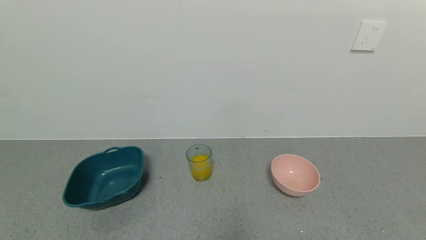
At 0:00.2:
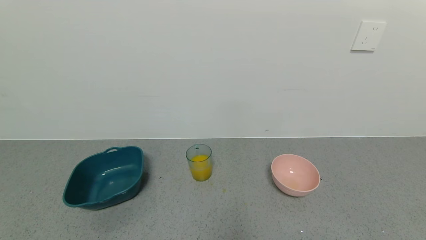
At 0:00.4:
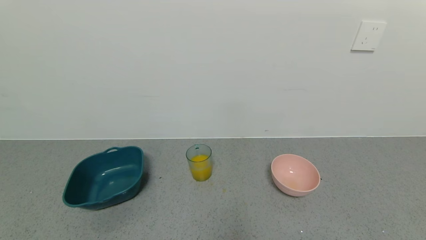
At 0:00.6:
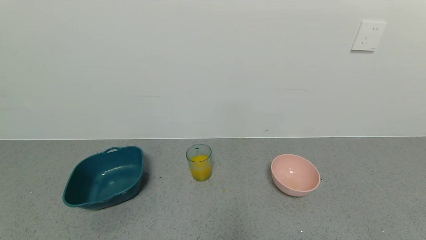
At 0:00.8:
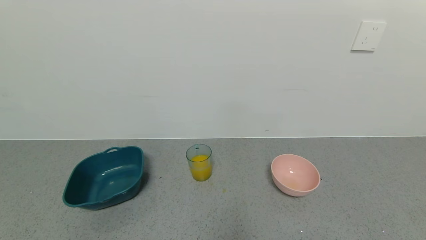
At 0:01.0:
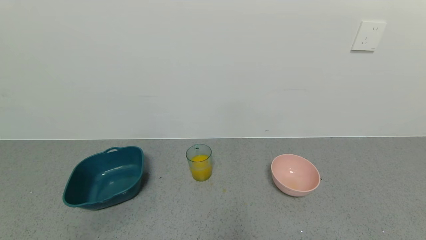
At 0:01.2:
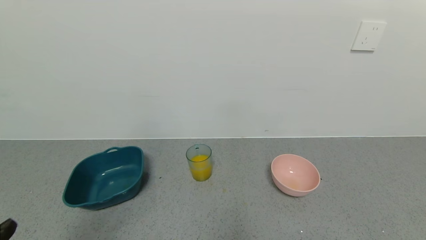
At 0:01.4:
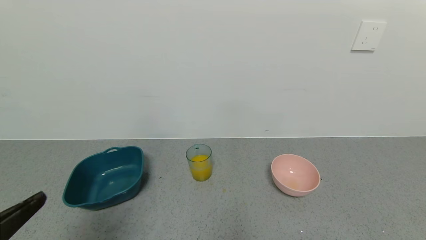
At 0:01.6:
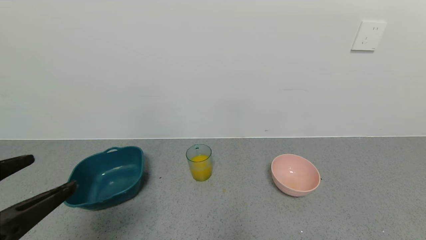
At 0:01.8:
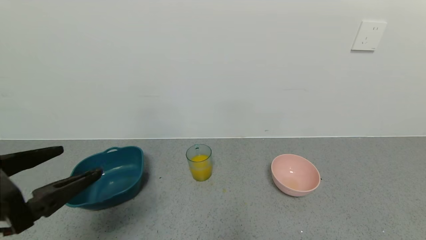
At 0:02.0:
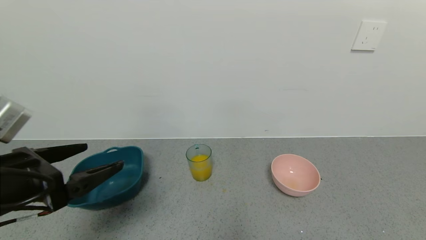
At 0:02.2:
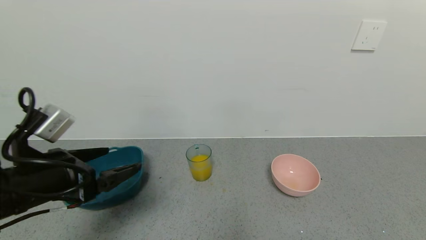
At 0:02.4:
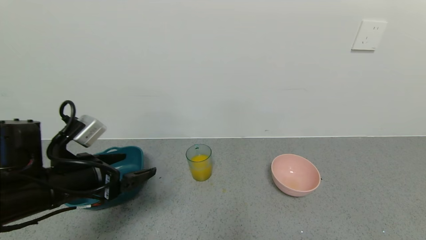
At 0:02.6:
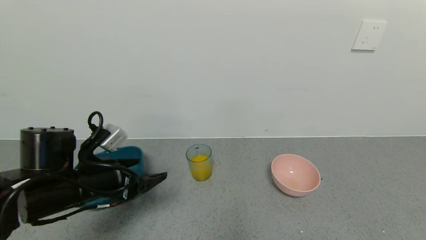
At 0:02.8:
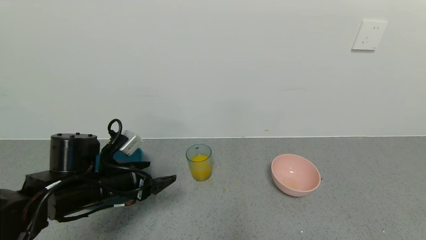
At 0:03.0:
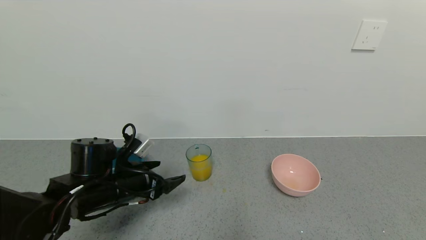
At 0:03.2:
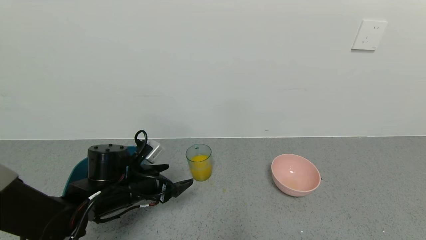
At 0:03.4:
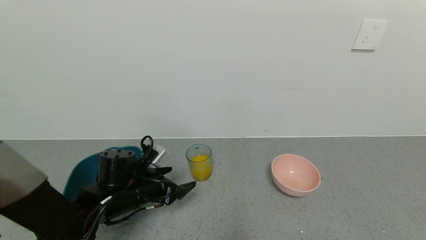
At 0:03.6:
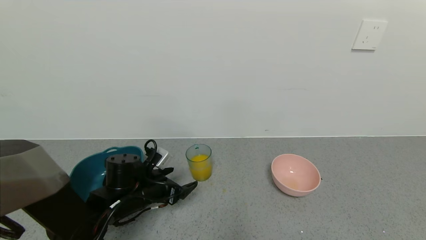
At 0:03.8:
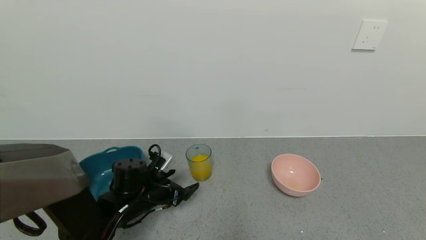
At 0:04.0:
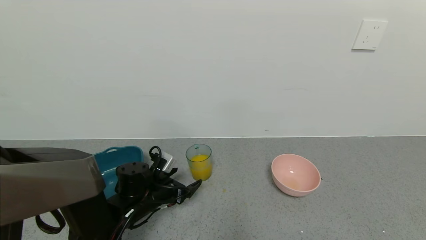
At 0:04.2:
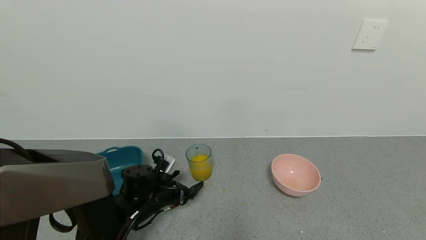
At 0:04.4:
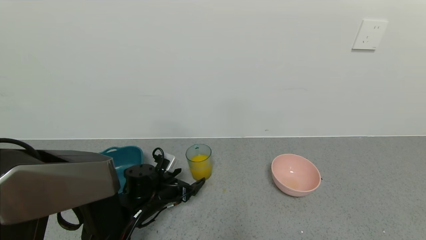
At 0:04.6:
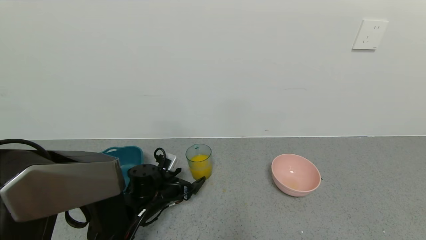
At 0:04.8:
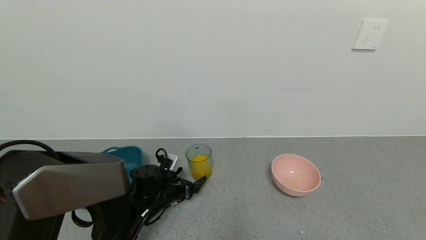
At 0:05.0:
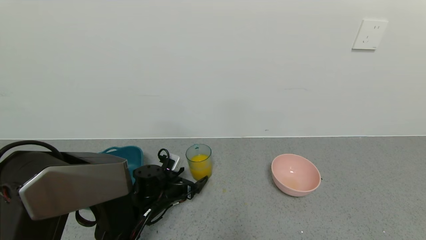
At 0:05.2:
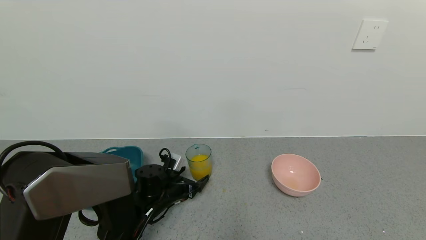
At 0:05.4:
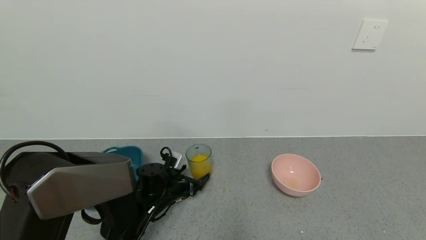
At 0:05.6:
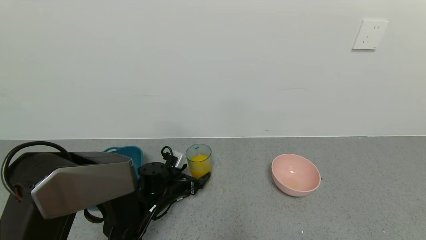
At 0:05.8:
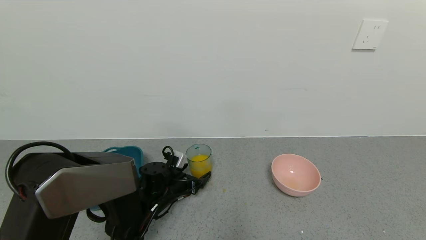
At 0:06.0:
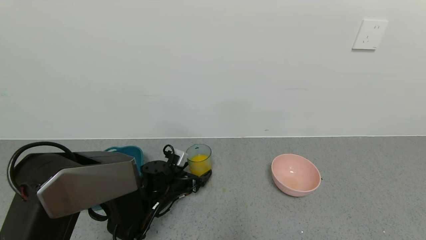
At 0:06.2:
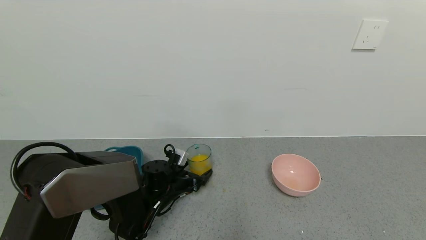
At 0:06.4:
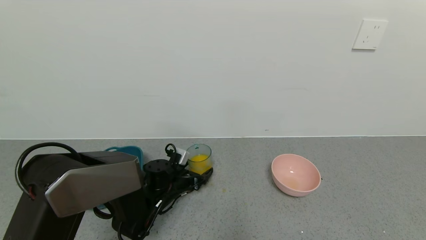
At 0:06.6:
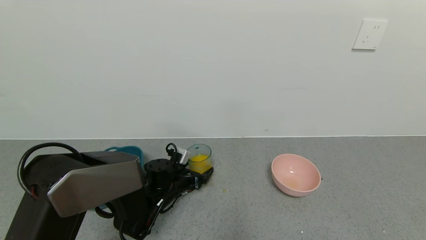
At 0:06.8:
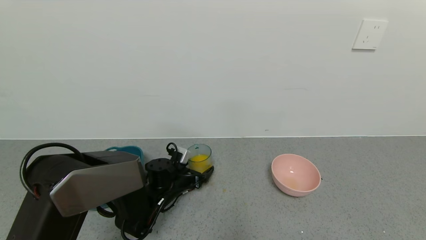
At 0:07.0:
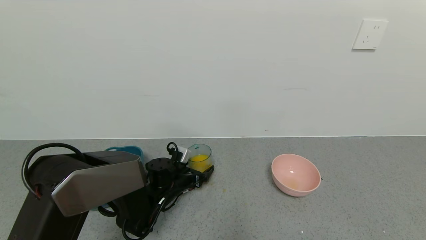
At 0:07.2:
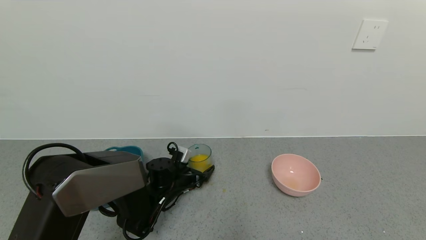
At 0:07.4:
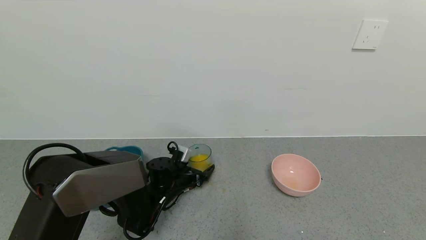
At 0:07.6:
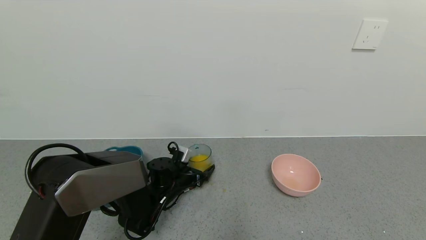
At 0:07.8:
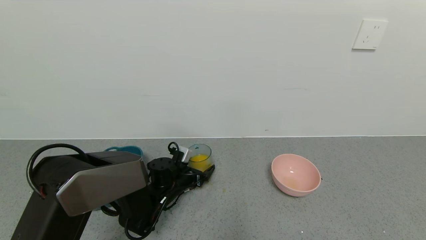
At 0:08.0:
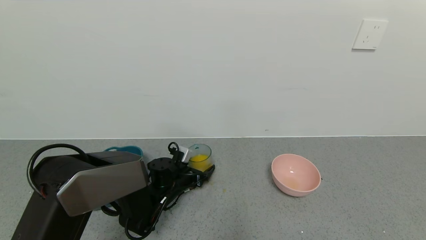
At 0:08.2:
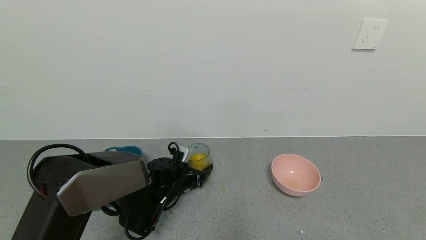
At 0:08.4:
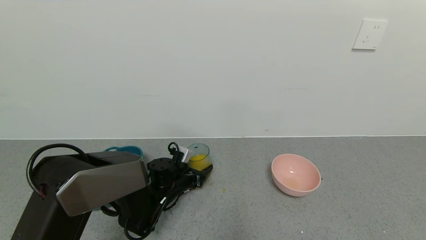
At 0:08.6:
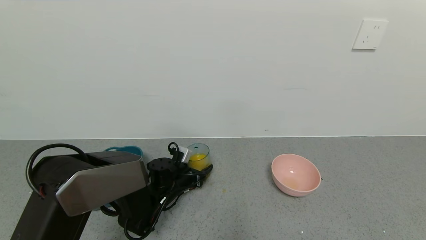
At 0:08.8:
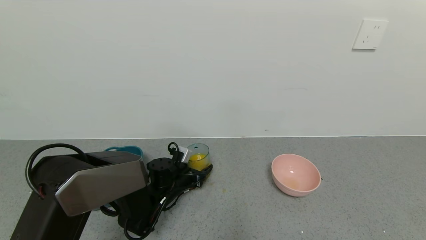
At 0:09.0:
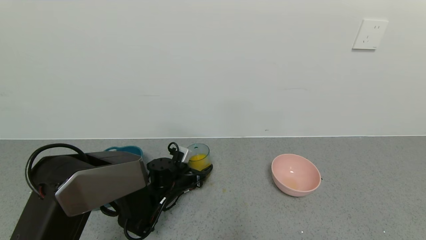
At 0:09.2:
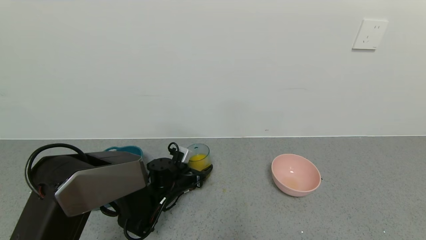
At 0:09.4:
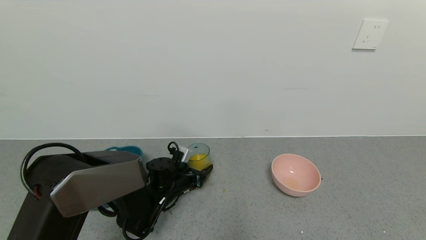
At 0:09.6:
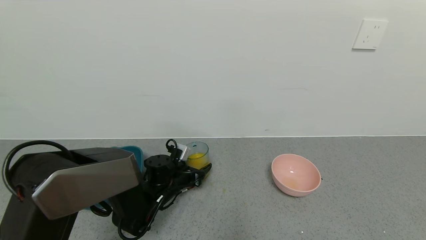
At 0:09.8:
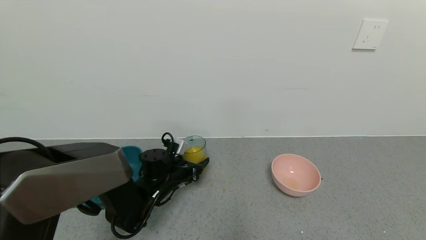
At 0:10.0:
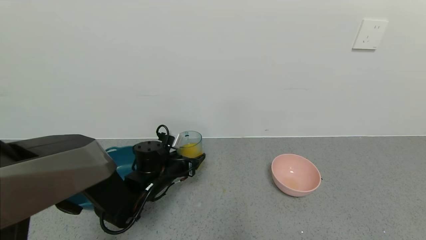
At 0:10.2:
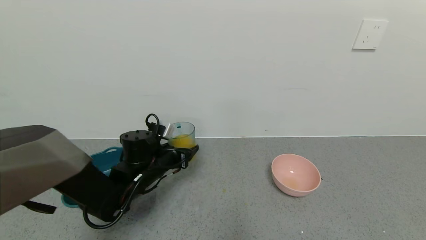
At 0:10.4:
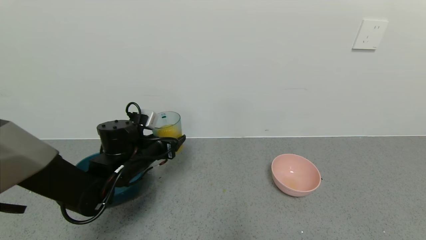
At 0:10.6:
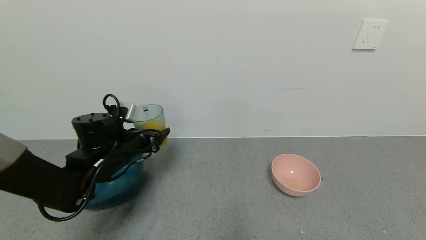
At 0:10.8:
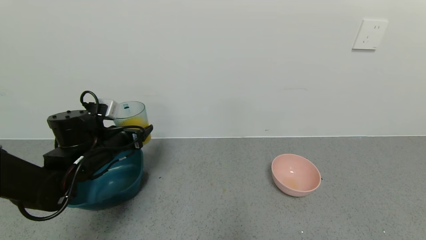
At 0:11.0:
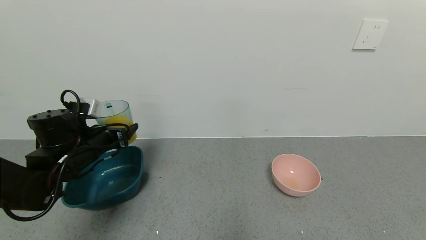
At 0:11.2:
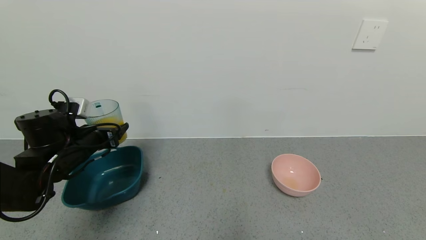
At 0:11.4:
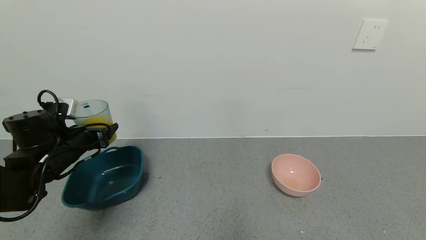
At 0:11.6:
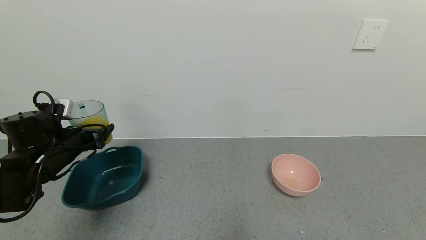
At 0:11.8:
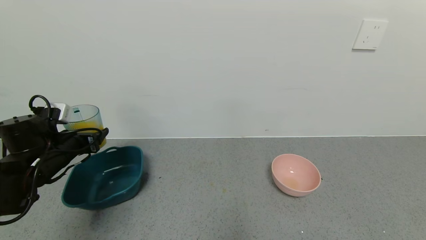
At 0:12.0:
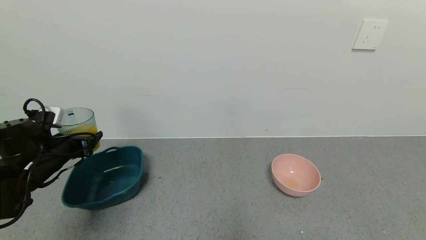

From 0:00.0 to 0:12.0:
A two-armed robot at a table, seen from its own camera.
Task of the whole recording: use a gripper to pick up the cup and pour the liquid into a bowl or tray.
From 0:00.0 to 0:01.6: The left gripper moves upward and forward, some 20 cm.
From 0:01.6 to 0:03.0: The left gripper travels forward and downward by about 20 cm.
From 0:03.0 to 0:04.4: The left gripper is displaced downward by roughly 10 cm.
From 0:04.4 to 0:06.0: The grippers stay close to where they were, moving slightly.
From 0:06.0 to 0:07.6: The grippers make only small movements.
From 0:09.0 to 0:10.4: The left gripper travels upward and to the left by some 15 cm.
From 0:10.4 to 0:12.0: The left gripper travels to the left by some 15 cm.

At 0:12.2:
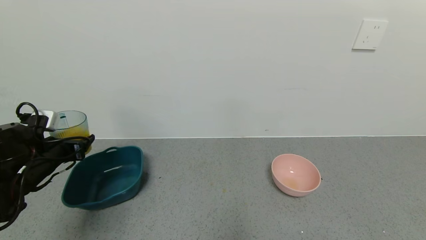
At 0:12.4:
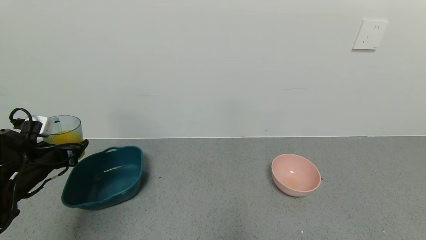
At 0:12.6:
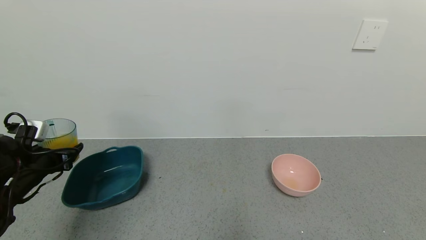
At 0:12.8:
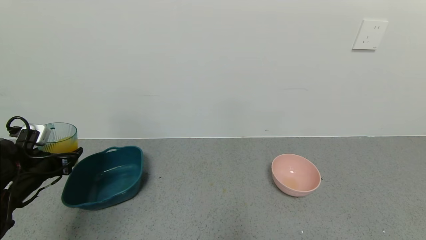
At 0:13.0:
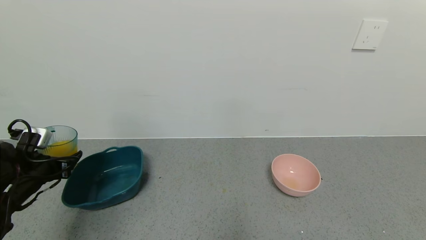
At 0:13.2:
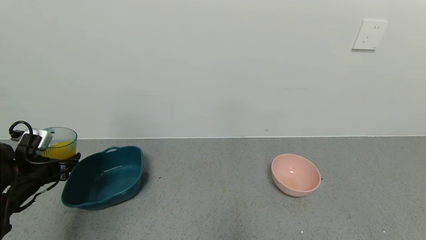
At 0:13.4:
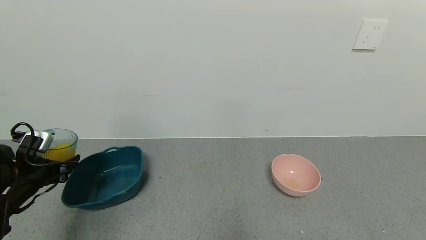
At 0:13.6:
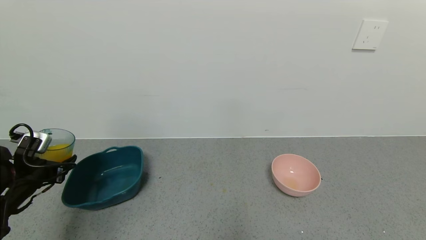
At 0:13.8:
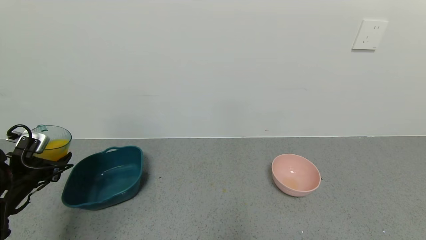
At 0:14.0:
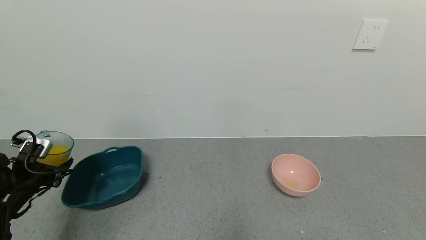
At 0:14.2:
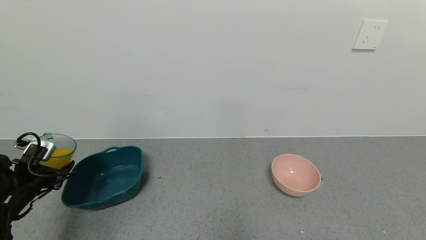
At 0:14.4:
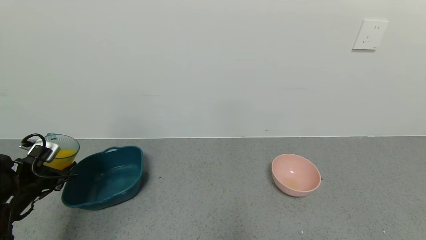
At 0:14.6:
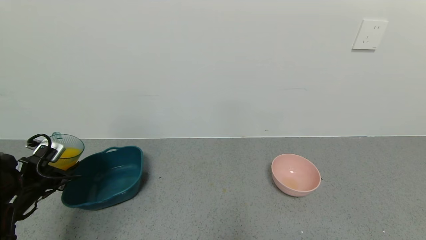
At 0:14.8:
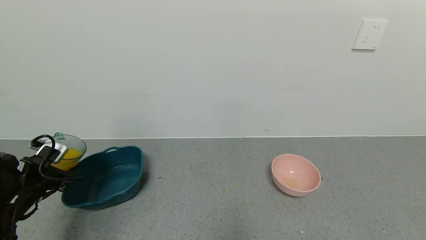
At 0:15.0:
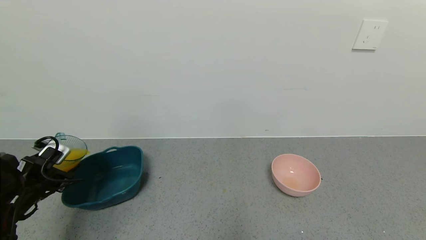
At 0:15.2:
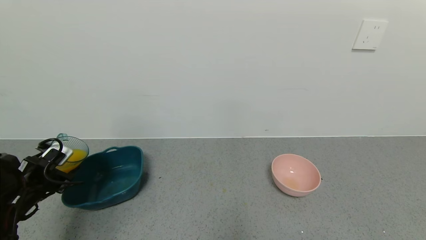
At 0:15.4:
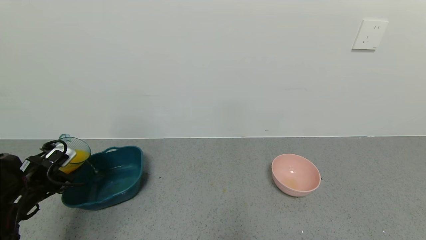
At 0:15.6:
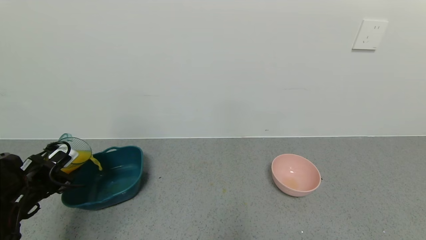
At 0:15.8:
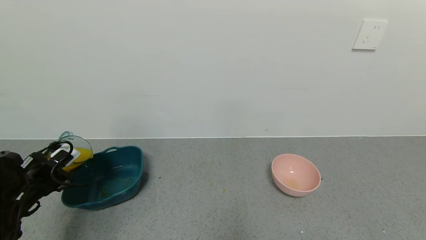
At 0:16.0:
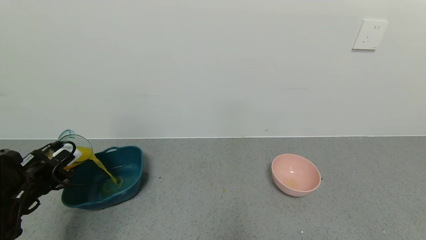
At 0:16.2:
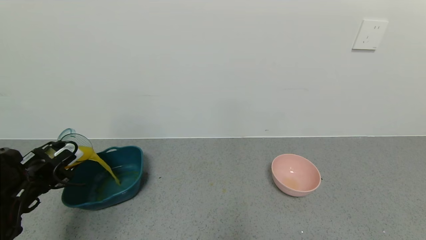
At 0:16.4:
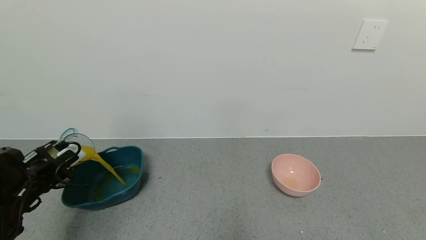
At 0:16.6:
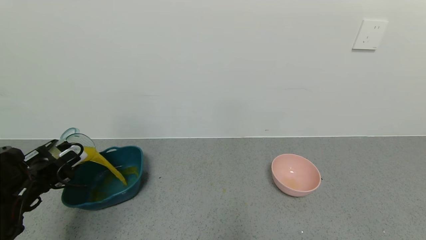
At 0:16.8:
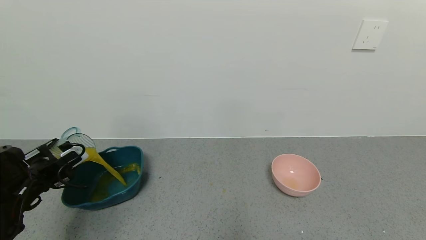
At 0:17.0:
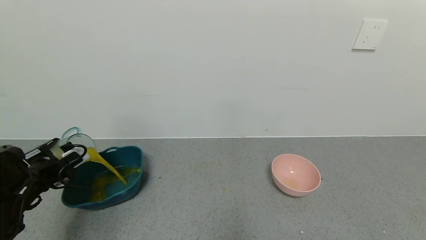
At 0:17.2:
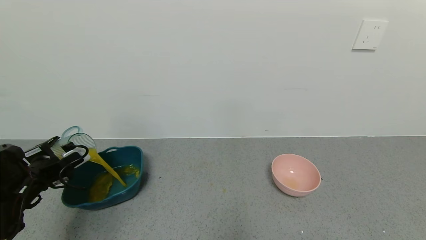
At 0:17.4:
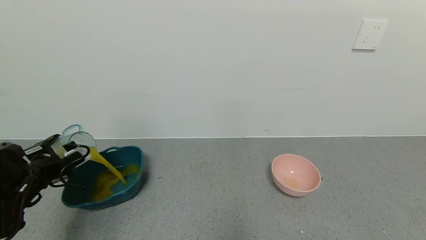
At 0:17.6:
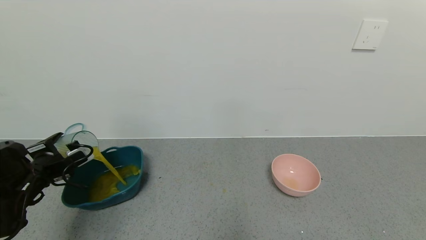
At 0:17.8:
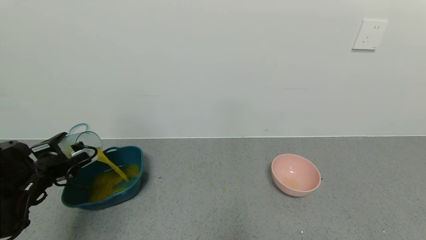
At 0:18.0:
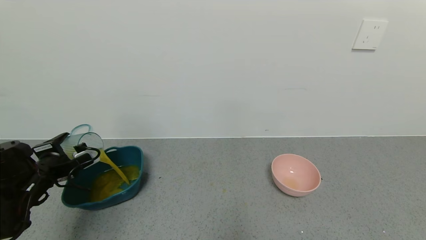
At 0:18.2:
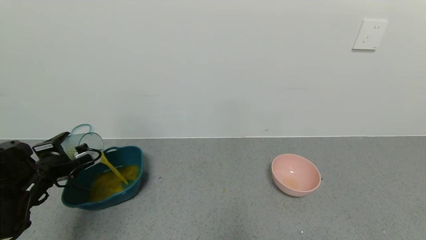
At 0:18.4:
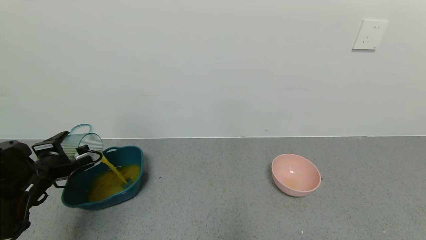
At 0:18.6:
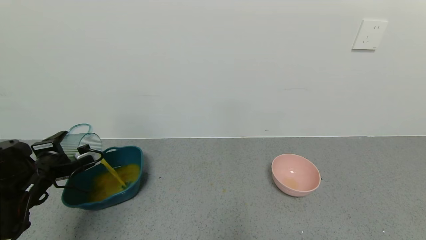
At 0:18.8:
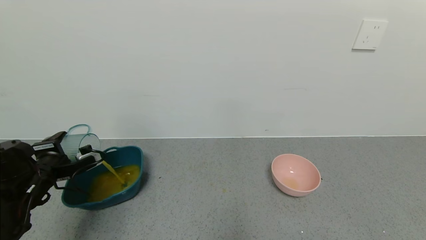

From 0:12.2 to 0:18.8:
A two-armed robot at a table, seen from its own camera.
Task of the whole recording: use a gripper to pick up the cup and pour the liquid into a bowl or tray.
From 0:12.2 to 0:13.8: The left gripper moves about 5 cm.
From 0:17.2 to 0:18.8: The grippers move only a little.
